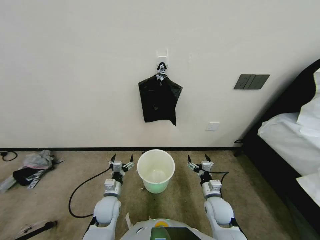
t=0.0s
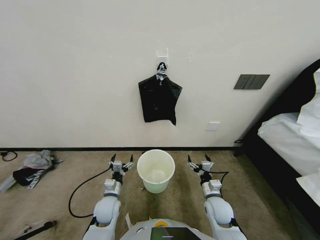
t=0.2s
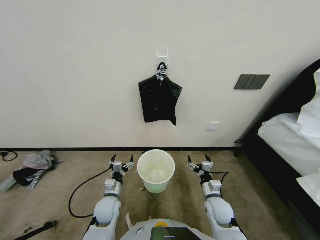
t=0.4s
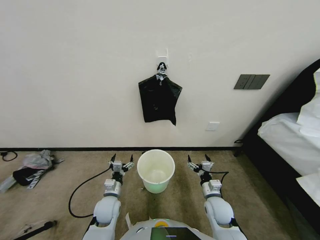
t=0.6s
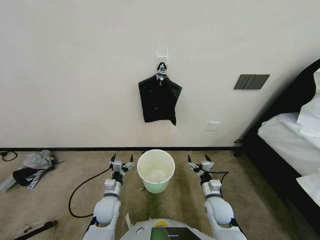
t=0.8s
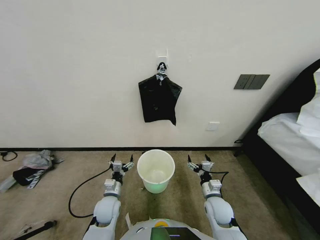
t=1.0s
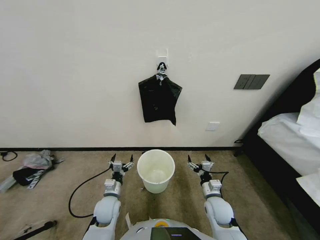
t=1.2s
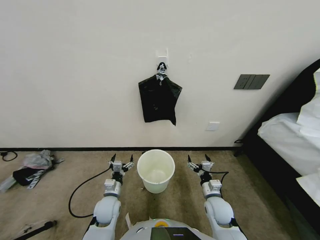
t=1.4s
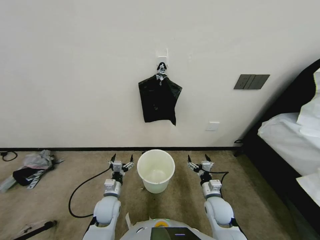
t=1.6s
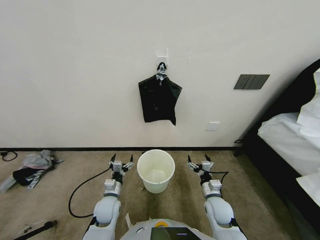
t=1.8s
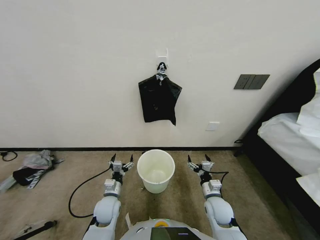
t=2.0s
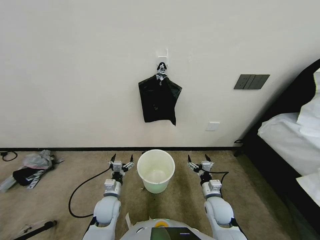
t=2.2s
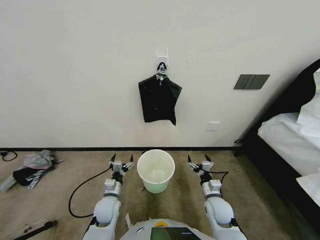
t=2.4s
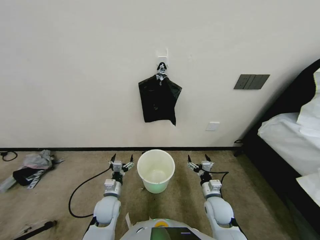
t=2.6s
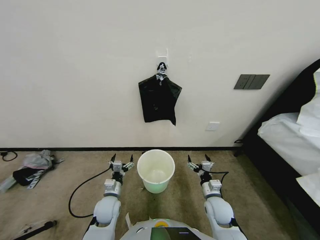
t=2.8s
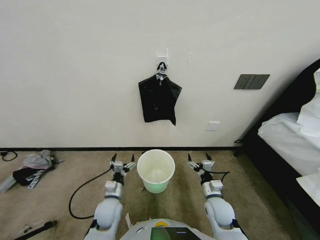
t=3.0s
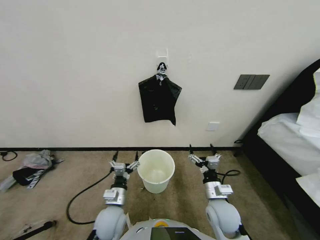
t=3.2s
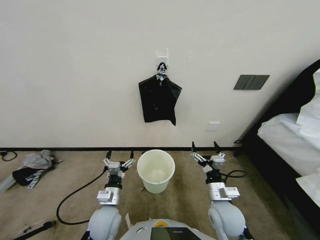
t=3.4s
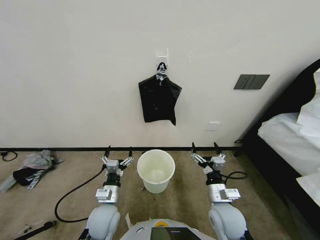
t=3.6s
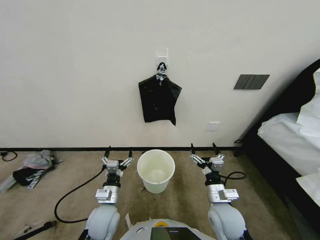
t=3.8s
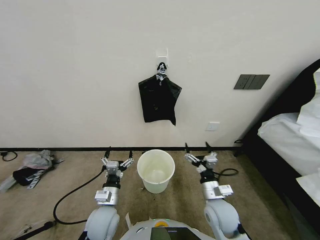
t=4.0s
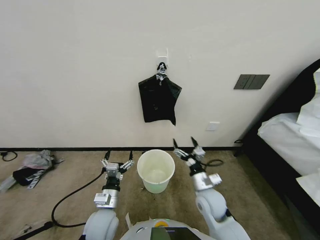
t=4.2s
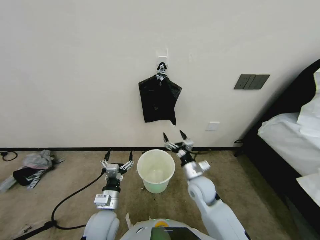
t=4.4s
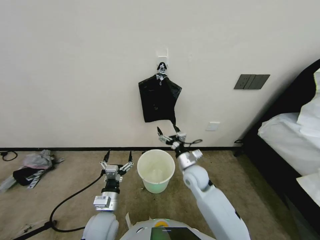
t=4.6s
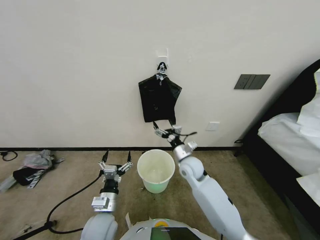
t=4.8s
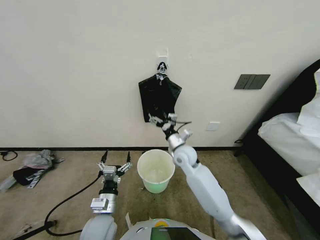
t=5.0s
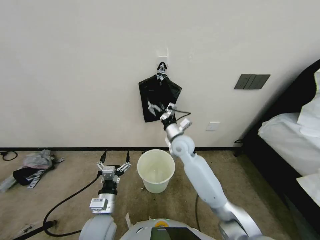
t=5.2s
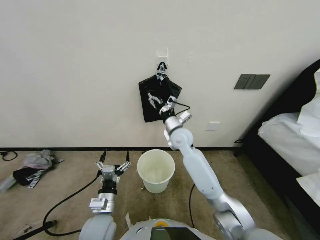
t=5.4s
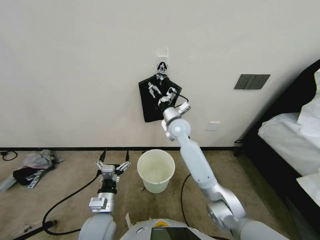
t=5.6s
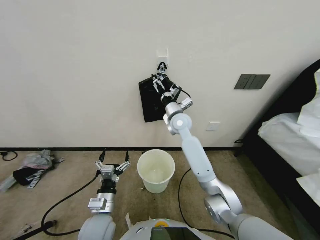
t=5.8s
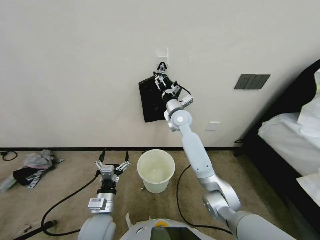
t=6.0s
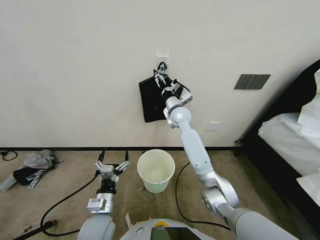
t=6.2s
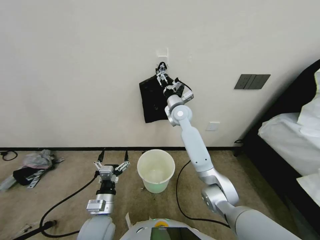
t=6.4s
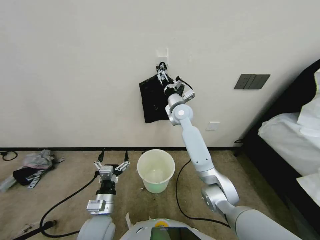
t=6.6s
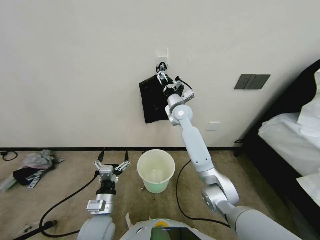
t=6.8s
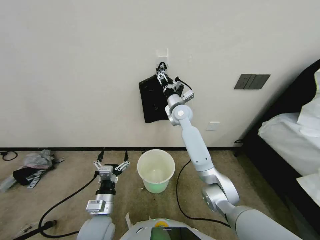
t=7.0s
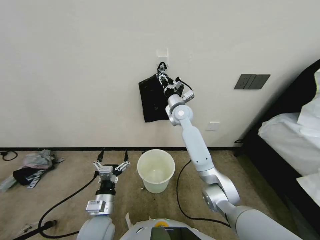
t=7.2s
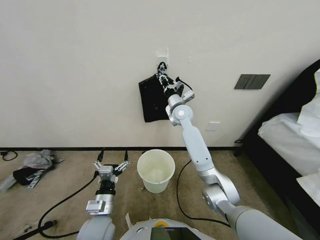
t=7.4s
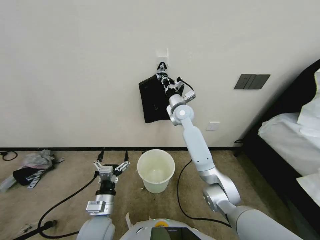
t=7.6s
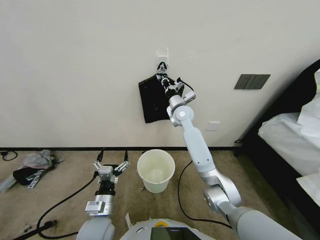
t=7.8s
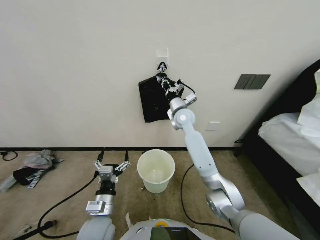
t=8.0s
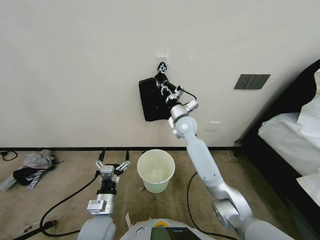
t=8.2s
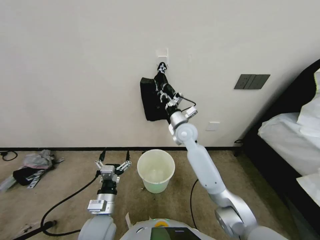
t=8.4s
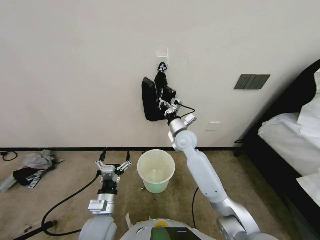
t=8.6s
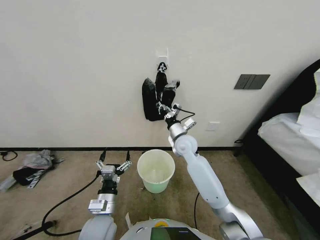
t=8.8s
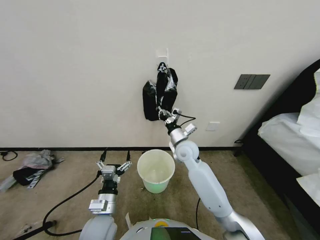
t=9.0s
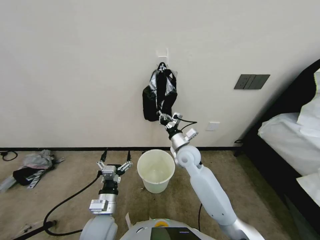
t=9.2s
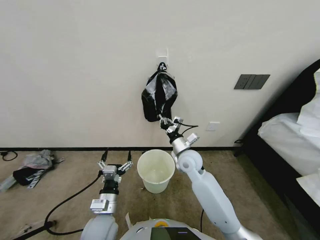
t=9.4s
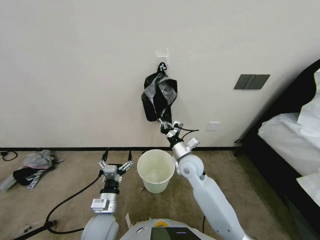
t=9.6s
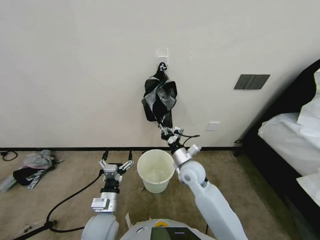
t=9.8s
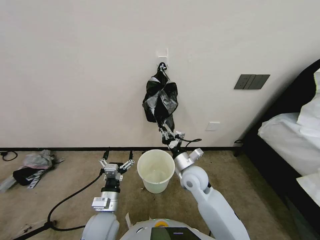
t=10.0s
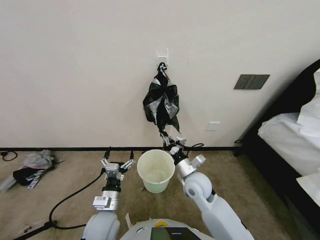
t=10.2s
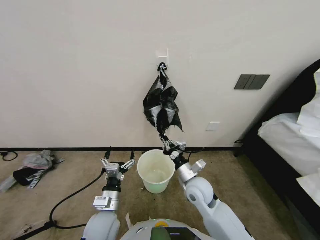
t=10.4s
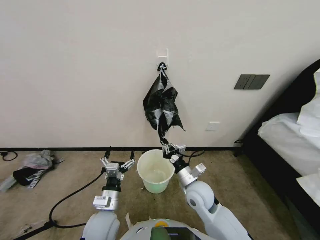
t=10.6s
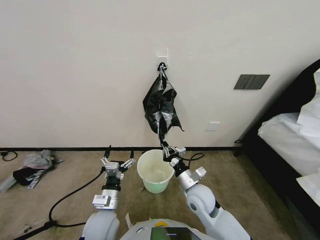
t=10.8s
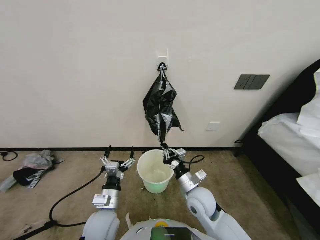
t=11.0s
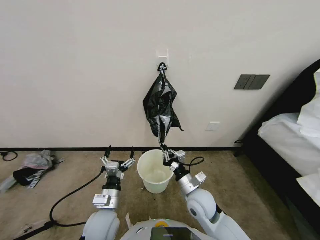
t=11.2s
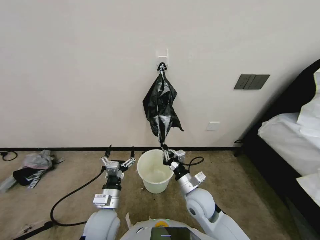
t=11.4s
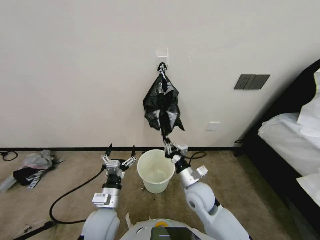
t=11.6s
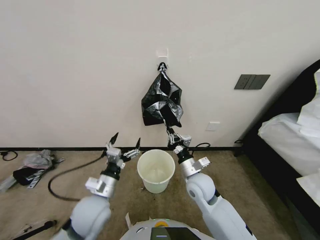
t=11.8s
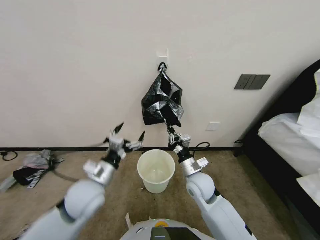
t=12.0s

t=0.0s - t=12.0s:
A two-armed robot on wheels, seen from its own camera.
Task of the whole recording: Place a trash bag onto the trash bin.
t=1.6s - t=3.0s: Both grippers stay put.
t=3.0s - t=4.4s: The left gripper is displaced upward and backward by about 10 cm, while the right gripper moves upward and to the left, roughly 10 cm.
t=4.4s - t=6.0s: The right gripper heads forward and upward, covering about 30 cm.
t=6.0s - t=7.6s: The right gripper closes its fingers.
t=7.6s - t=9.0s: The right gripper travels backward and downward by some 15 cm.
t=9.0s - t=10.4s: The right gripper shifts approximately 15 cm backward and downward.
t=10.4s - t=12.0s: The left gripper travels upward by about 10 cm.

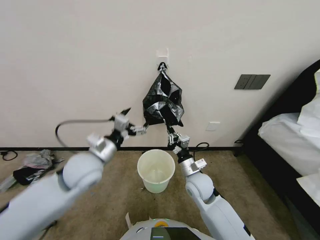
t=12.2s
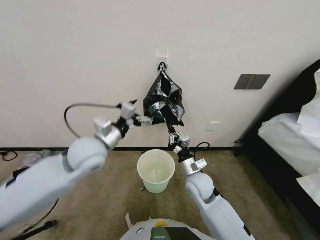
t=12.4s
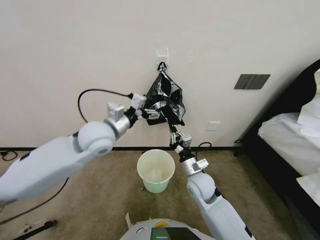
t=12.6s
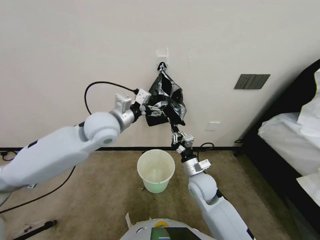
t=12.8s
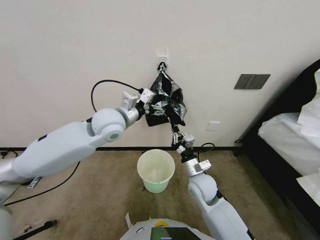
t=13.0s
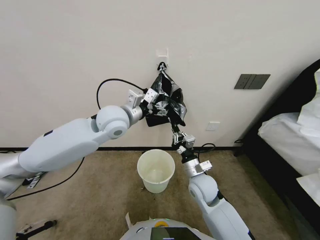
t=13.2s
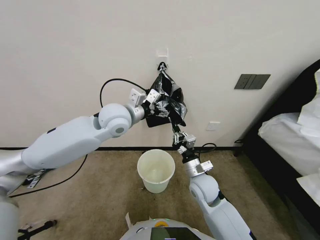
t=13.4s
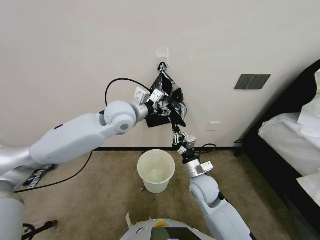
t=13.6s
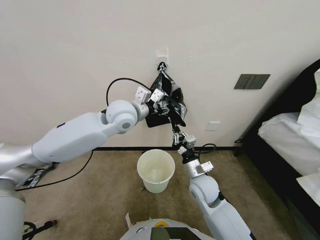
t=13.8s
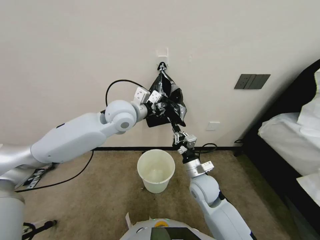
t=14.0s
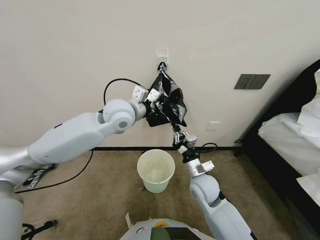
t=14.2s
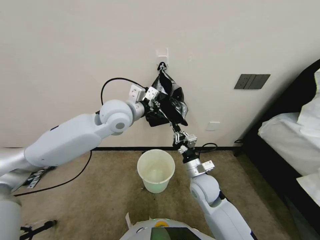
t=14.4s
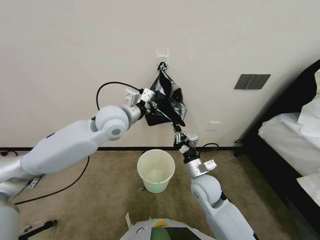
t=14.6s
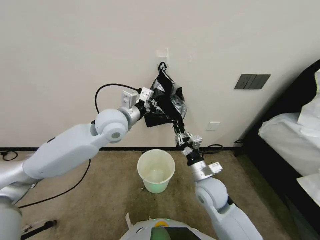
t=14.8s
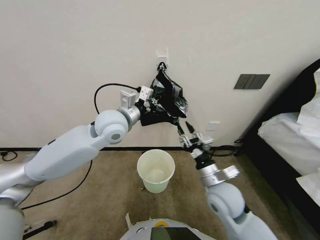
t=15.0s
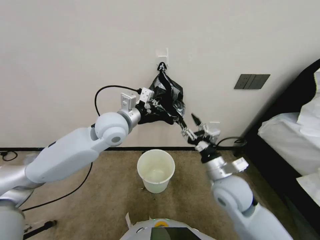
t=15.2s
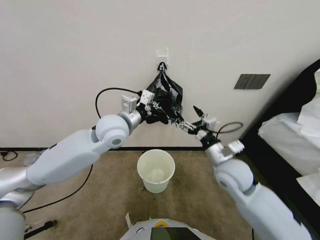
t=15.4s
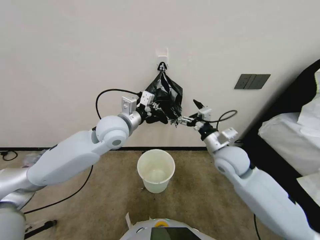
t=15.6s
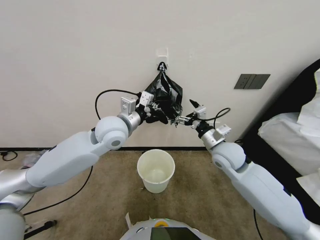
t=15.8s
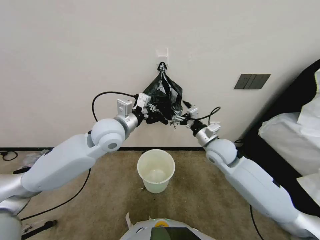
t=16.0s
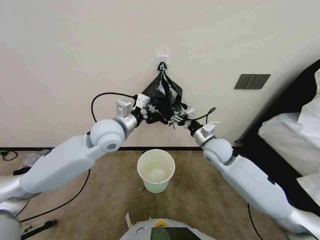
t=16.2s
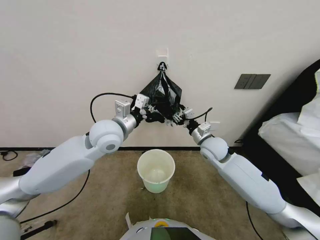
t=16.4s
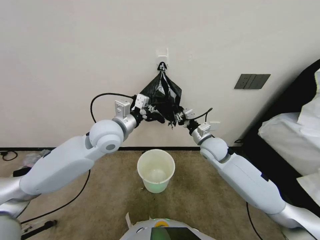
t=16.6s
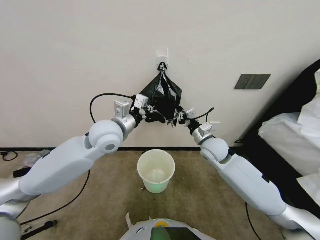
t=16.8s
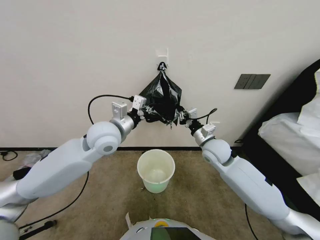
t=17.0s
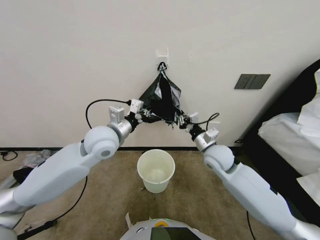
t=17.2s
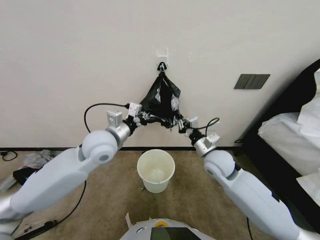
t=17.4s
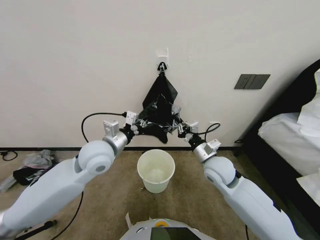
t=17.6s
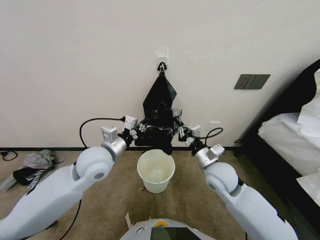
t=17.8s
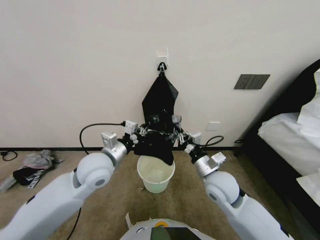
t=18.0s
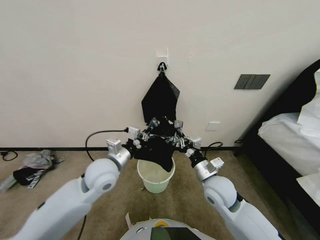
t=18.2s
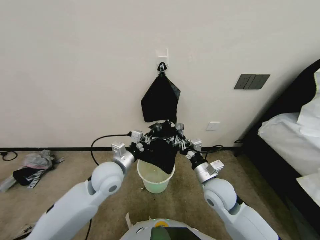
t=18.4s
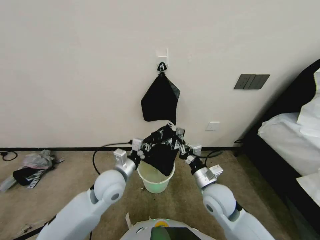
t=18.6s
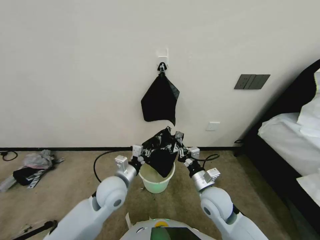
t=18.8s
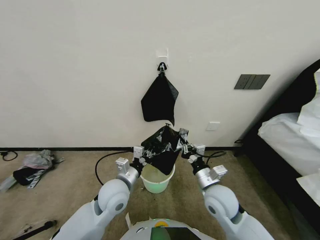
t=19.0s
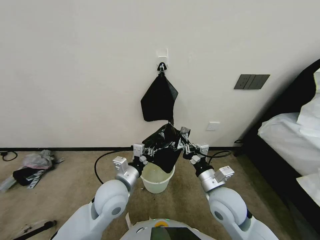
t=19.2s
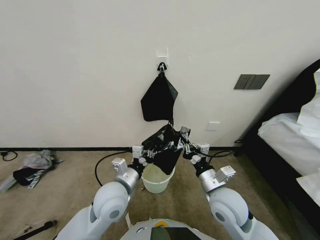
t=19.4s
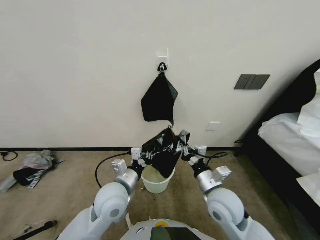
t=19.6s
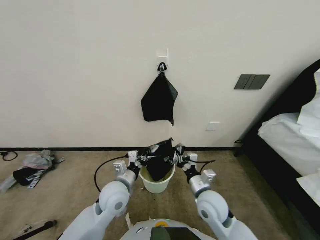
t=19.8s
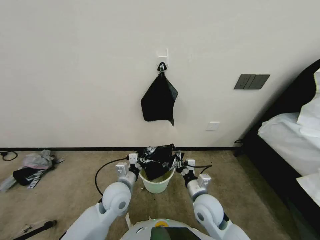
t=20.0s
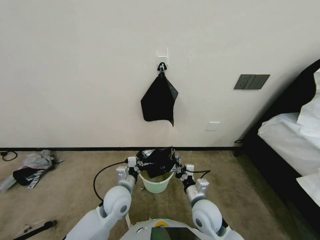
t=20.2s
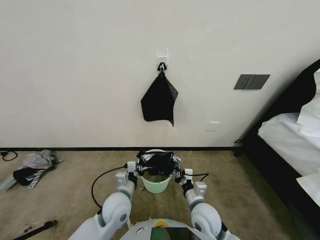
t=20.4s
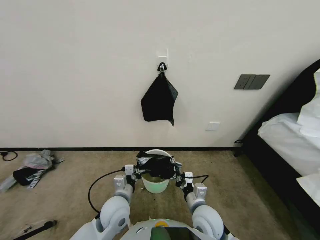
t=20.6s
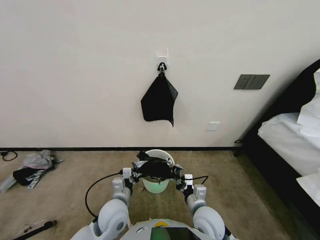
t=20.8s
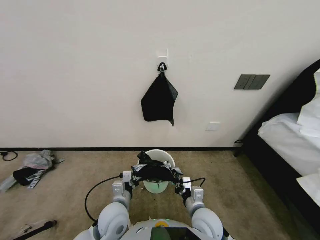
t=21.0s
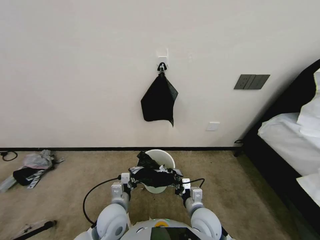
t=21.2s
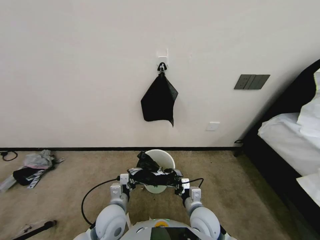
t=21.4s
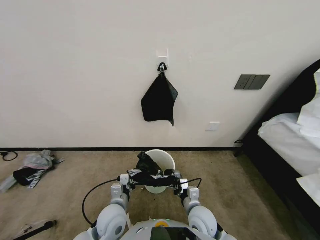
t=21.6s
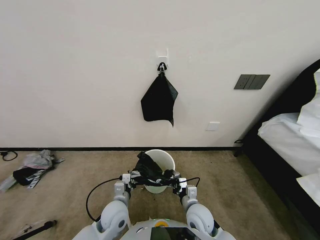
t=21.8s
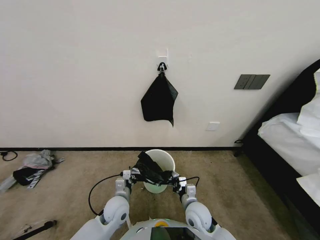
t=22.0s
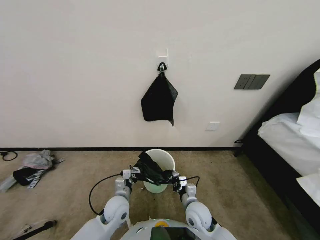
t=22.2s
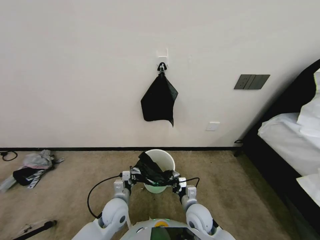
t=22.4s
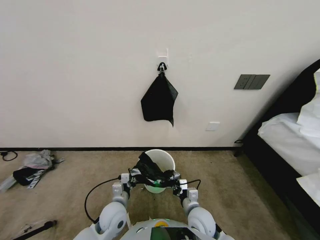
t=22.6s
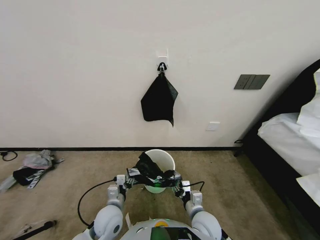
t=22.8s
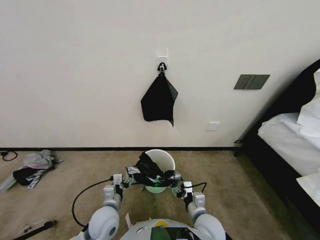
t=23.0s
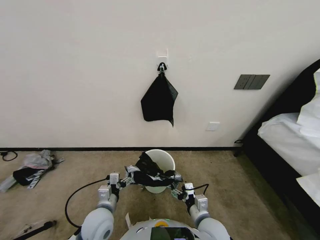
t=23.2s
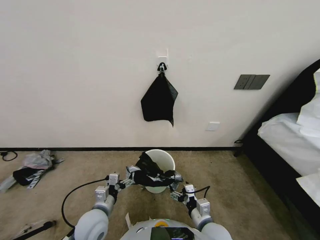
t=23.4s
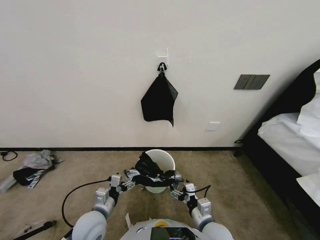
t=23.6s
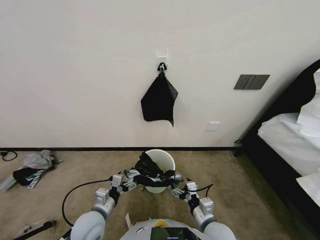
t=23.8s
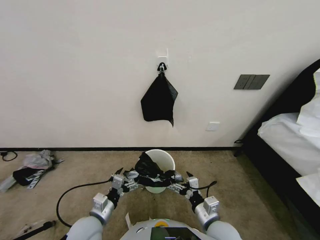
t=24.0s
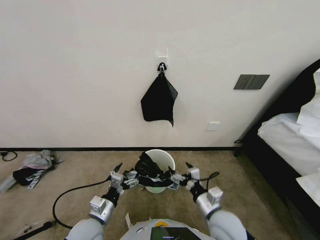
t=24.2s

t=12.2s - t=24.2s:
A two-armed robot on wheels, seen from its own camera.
Task of the whole recording: Place a trash bag onto the trash bin.
t=12.2s - t=13.8s: The left gripper travels forward, upward and to the right by some 25 cm.
t=13.8s - t=15.2s: The right gripper is displaced upward by some 5 cm, and opens up. Meanwhile the left gripper closes up.
t=15.2s - t=16.6s: The right gripper is displaced forward by approximately 15 cm, and opens, then closes once more.
t=16.6s - t=18.2s: The left gripper travels downward and backward by about 10 cm. The right gripper travels backward by some 15 cm.
t=18.2s - t=19.8s: The left gripper is displaced downward and backward by about 10 cm.
t=19.8s - t=21.2s: The two grippers go approximately 10 cm downward.
t=21.2s - t=22.6s: The right gripper ends up roughly 5 cm from where it was. The left gripper is displaced downward by some 5 cm.
t=22.6s - t=24.2s: The left gripper travels backward, to the left and upward by some 10 cm, and opens its fingers. The right gripper shifts roughly 10 cm upward and backward, and opens up.
